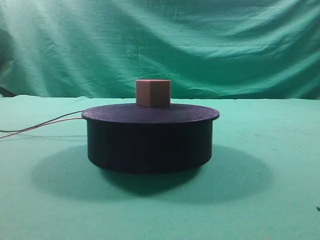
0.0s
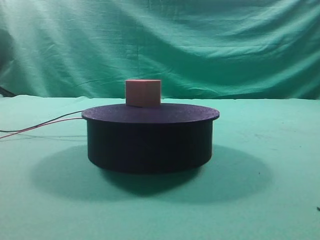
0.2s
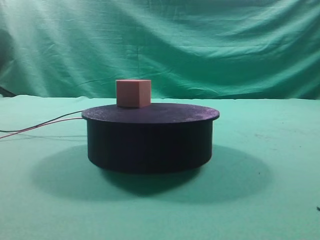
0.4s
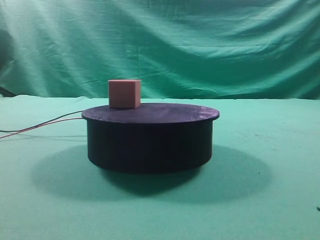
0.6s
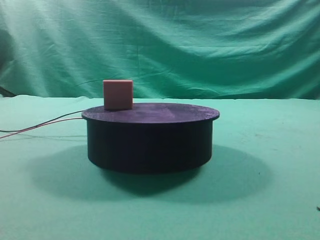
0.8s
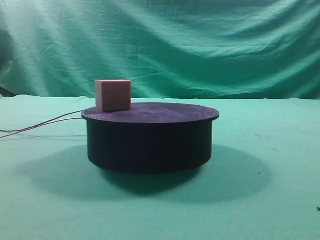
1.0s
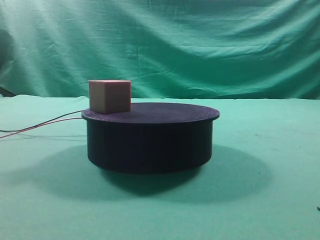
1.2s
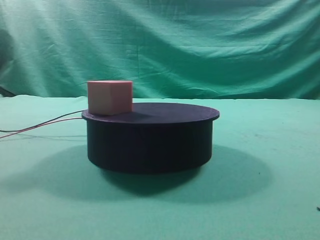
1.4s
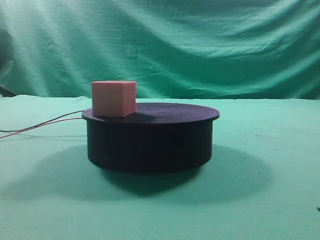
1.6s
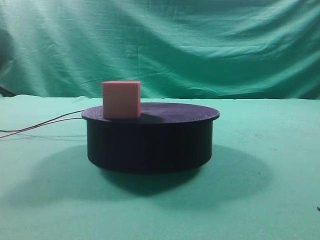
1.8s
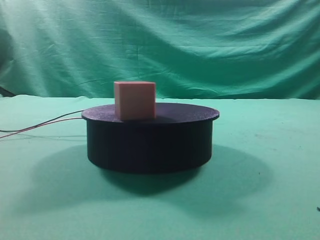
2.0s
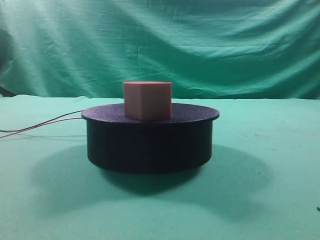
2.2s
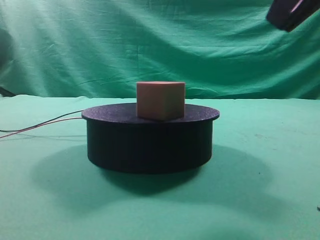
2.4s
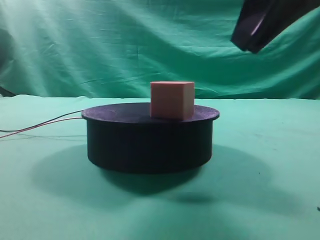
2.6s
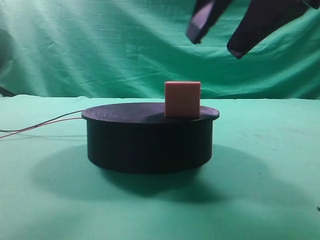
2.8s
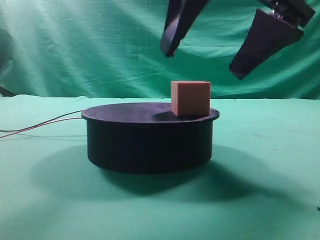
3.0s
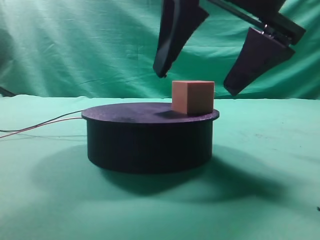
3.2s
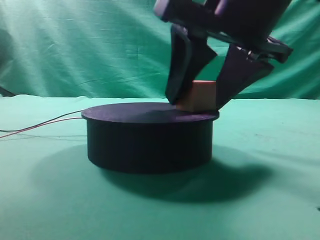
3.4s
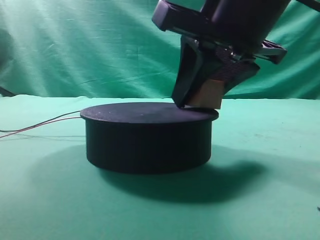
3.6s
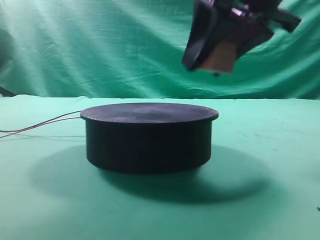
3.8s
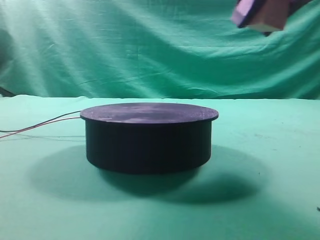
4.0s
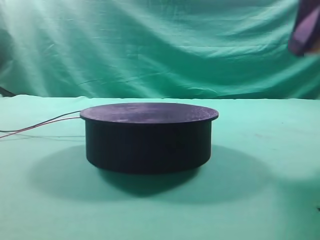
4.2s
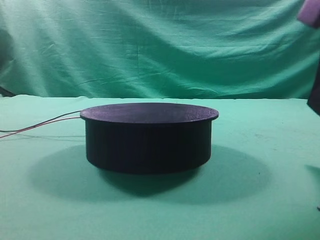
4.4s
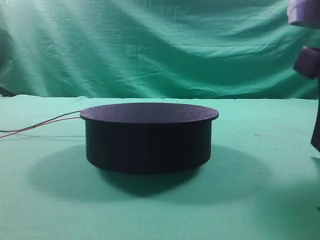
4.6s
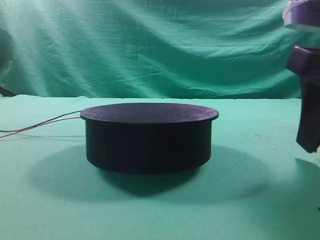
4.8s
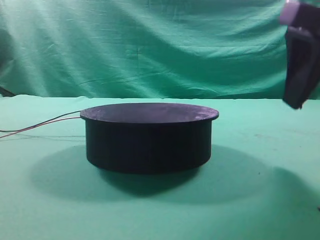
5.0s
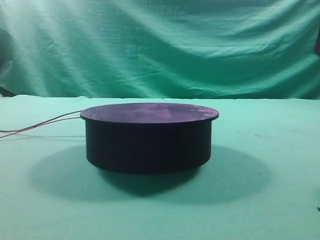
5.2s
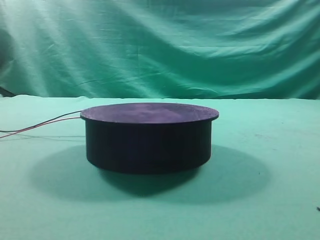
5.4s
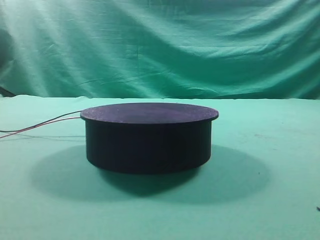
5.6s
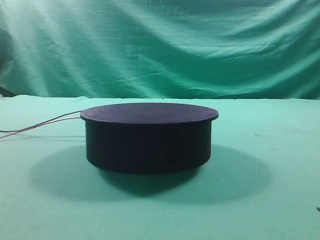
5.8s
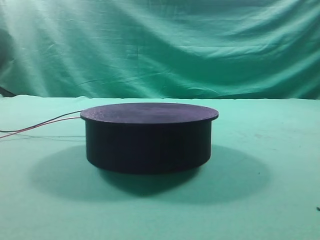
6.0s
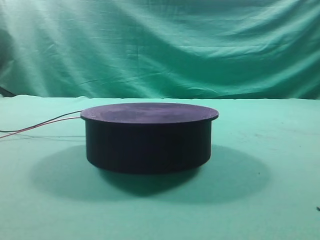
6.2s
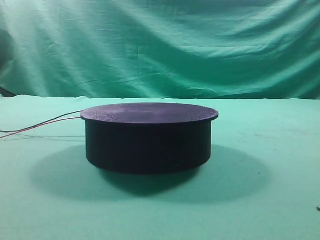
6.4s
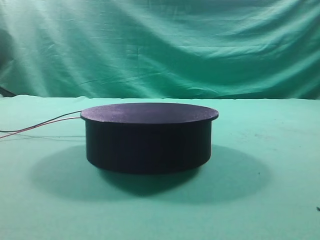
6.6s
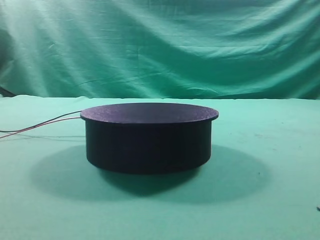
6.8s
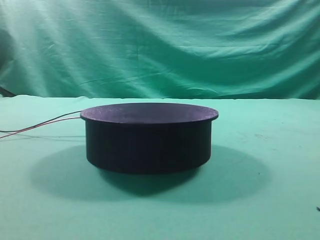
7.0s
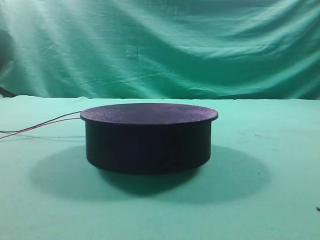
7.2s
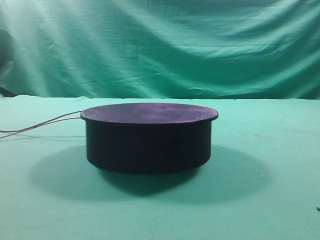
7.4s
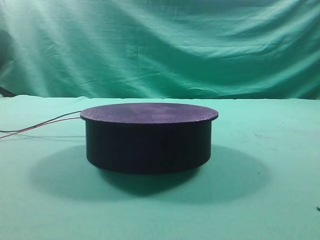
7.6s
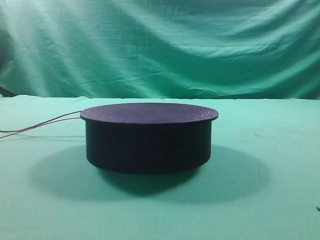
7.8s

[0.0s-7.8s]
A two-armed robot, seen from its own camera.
Task of the whole recording: grasp the rotating cube-shaped block on the turntable and place it on the table.
Step, 0.0s to 3.6s: Grasp the rotating cube-shaped block on the turntable.
Step, 3.8s to 5.0s: Place the cube on the desk.

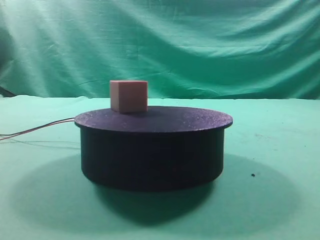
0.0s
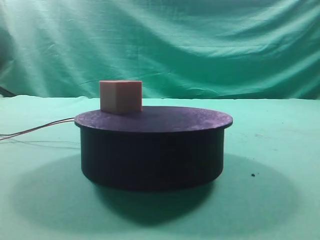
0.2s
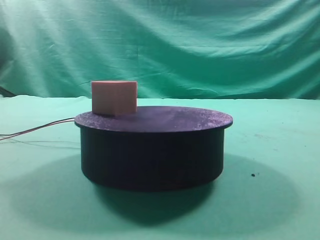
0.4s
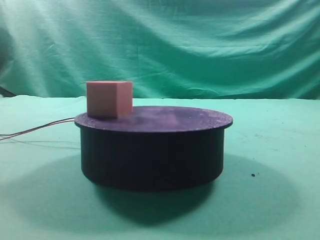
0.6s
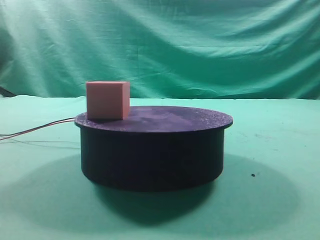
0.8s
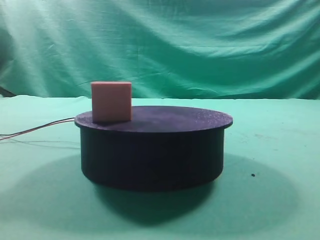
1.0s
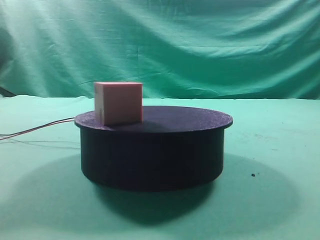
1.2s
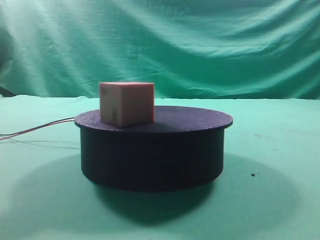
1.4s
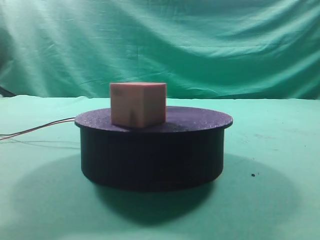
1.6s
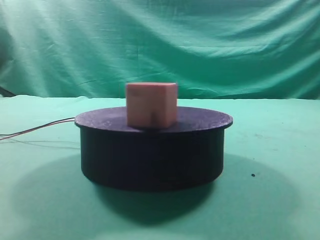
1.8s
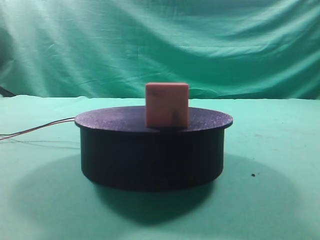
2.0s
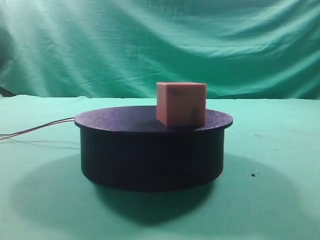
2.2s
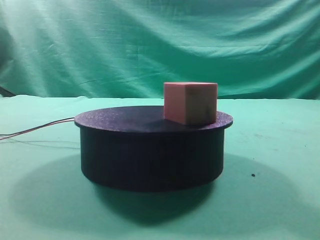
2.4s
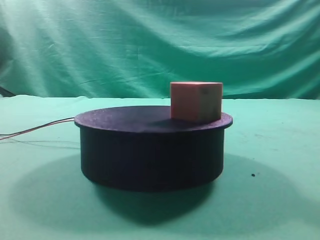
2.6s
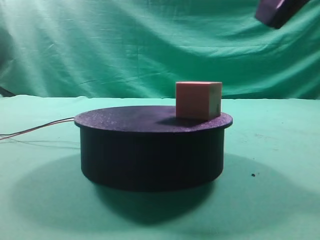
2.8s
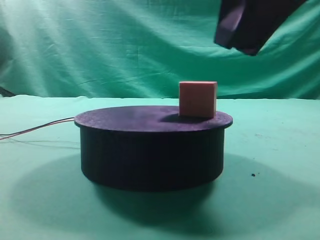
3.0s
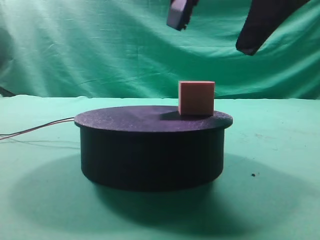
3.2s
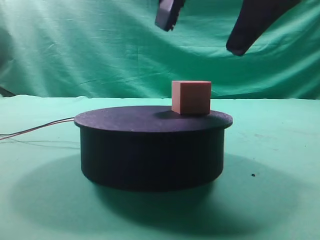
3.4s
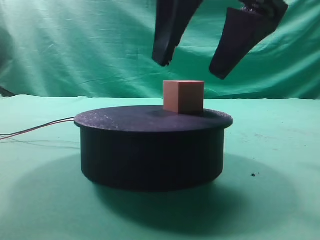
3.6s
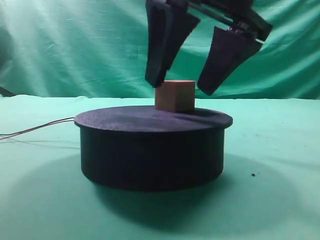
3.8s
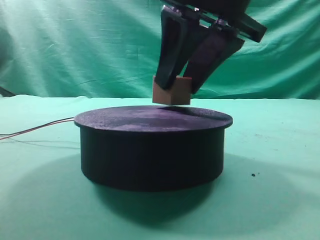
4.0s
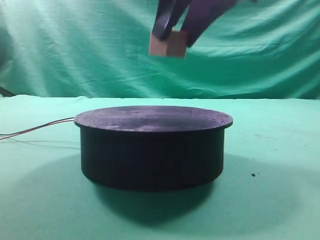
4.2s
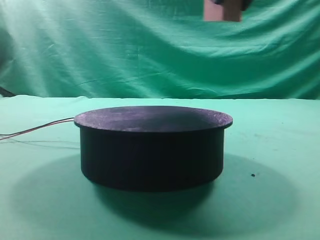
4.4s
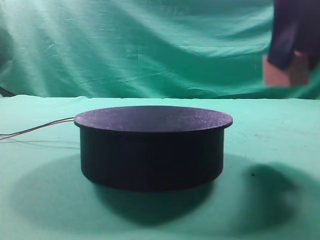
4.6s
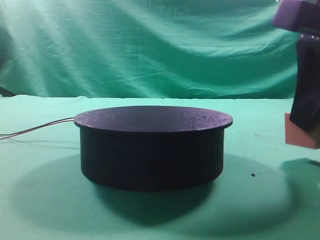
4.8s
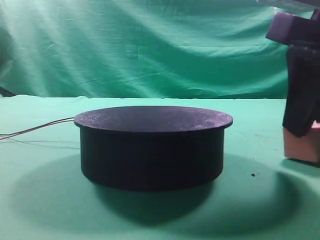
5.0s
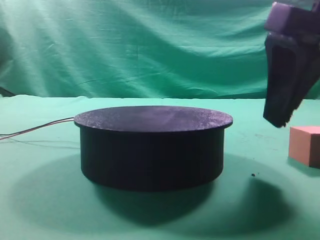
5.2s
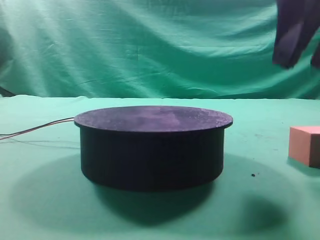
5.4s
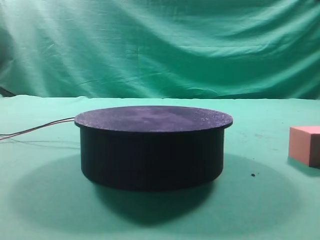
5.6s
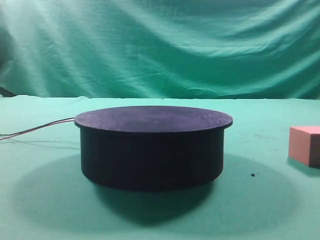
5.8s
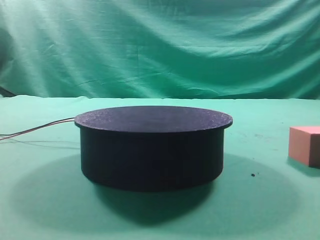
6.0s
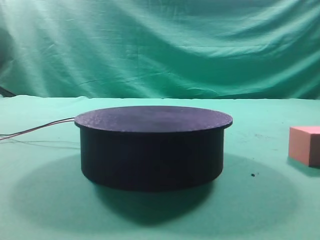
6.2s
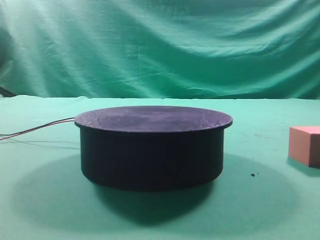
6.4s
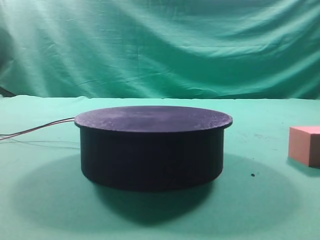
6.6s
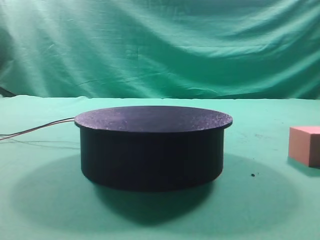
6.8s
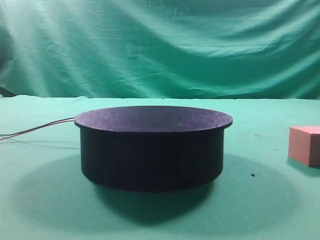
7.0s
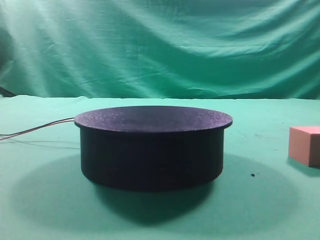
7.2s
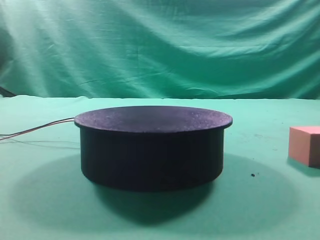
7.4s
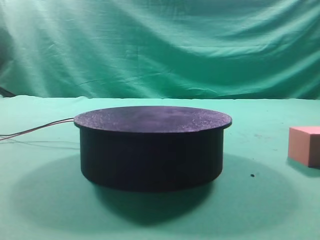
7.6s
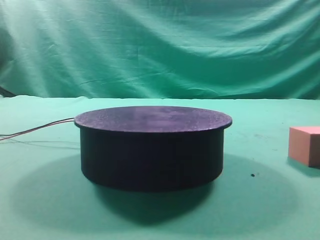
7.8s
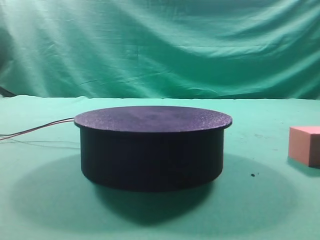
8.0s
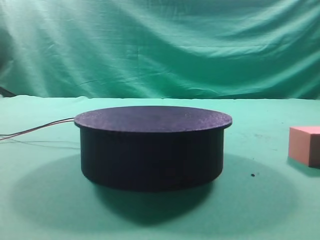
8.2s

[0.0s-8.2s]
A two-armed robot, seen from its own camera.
Task of the whole recording: grasp the rotating cube-shaped block on the turntable and place it on the table.
Step, 0.0s to 3.2s: Grasp the rotating cube-shaped block on the turntable.
Step, 3.4s to 4.2s: Place the cube on the desk.

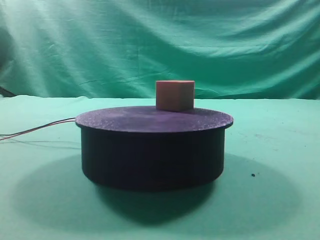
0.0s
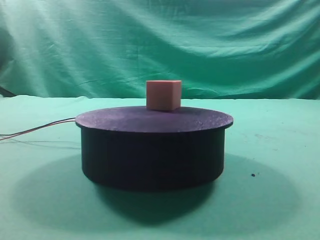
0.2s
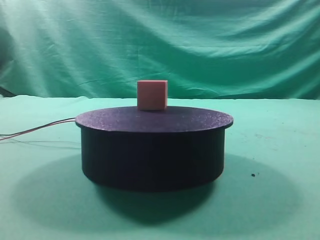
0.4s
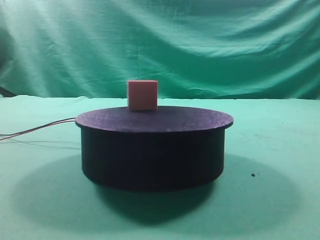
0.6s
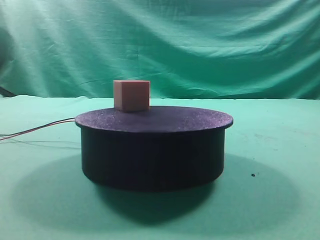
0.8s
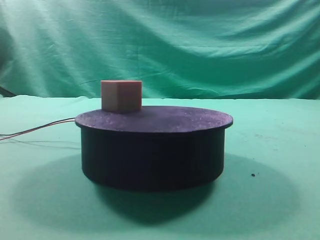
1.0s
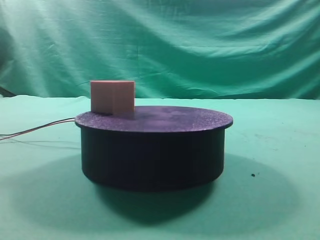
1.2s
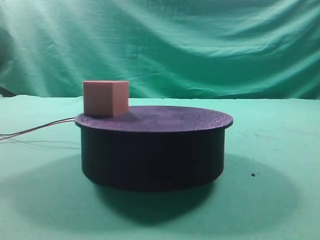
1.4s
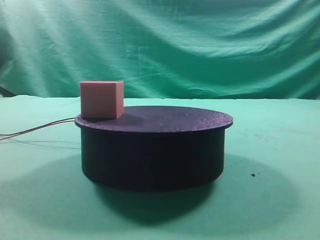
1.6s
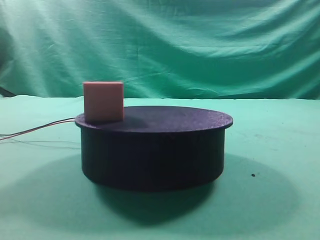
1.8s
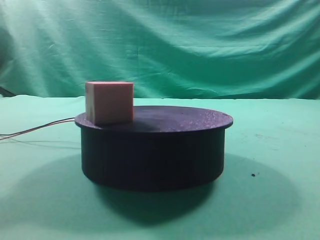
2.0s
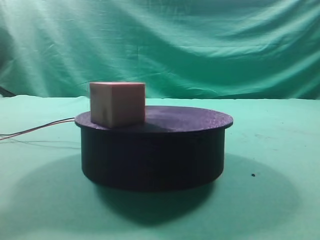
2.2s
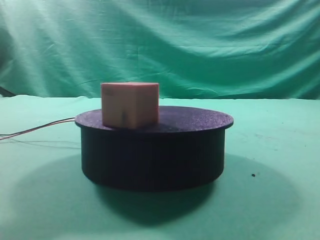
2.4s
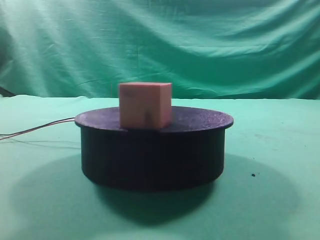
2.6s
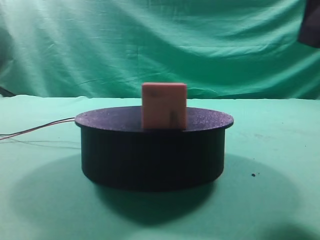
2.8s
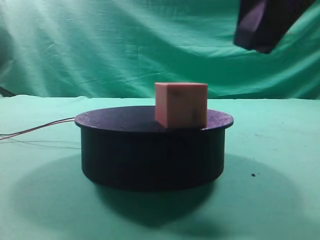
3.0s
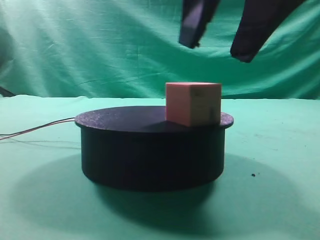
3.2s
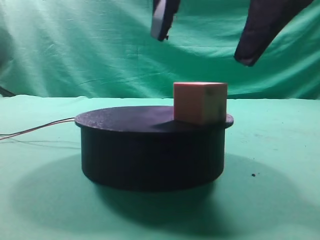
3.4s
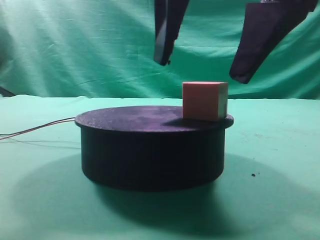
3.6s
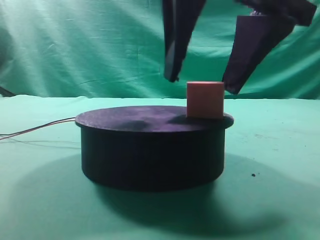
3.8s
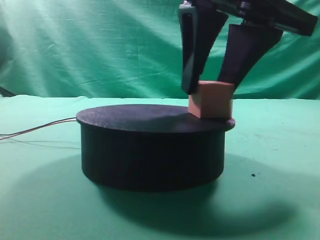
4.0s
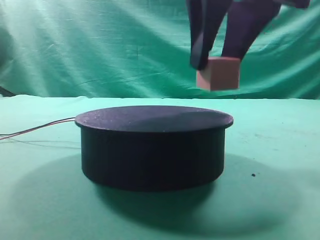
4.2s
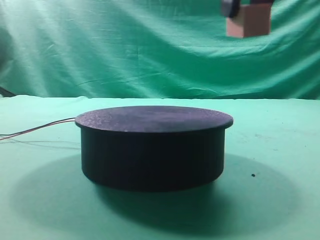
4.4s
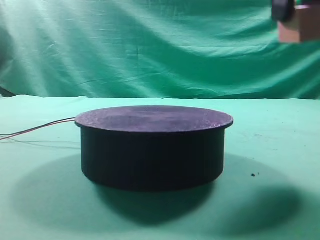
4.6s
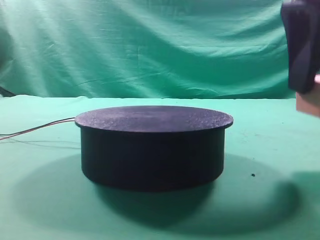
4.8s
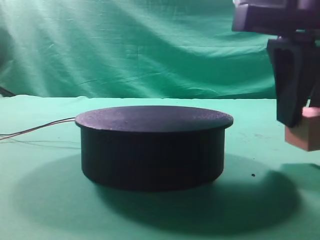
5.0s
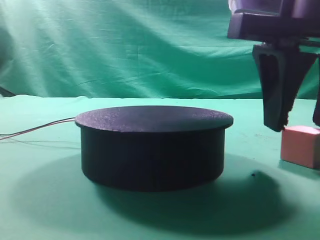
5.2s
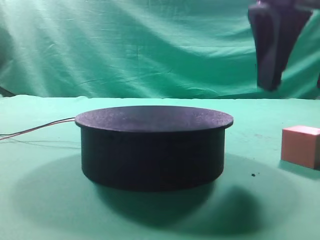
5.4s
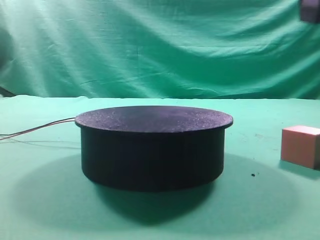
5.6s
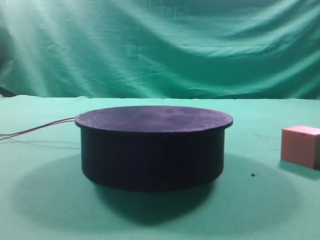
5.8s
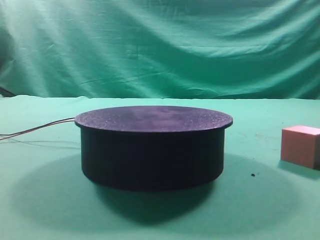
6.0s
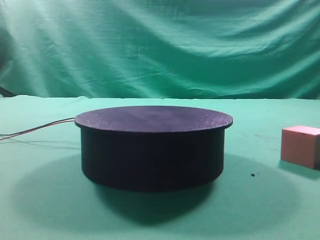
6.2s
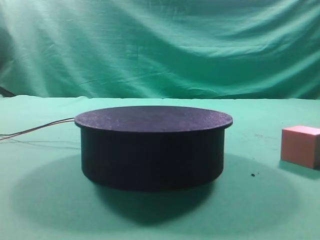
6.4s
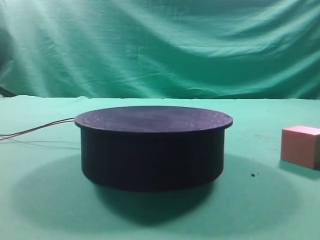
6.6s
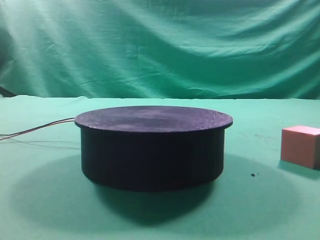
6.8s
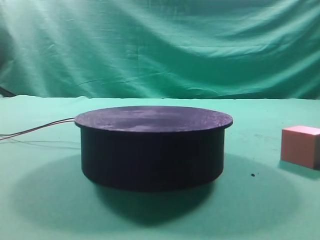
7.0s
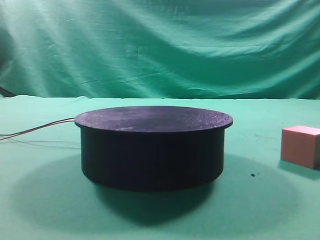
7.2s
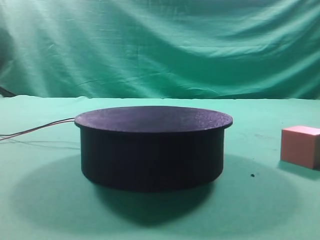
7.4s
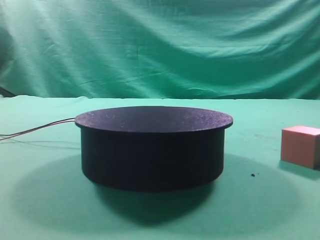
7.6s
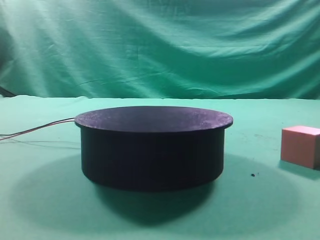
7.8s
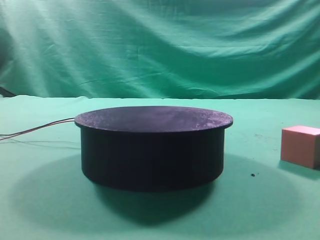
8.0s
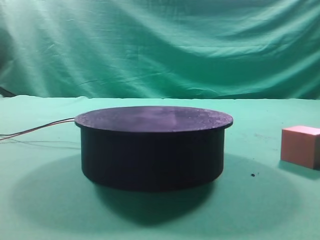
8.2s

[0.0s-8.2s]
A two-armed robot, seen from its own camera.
Task of the whole recording: grasp the rotating cube-shaped block on the turntable and place it on the table.
Step, 0.0s to 4.0s: Grasp the rotating cube-shaped block on the turntable.
Step, 4.2s to 5.2s: Place the cube on the desk.
